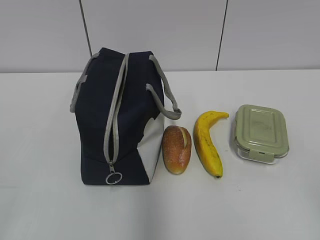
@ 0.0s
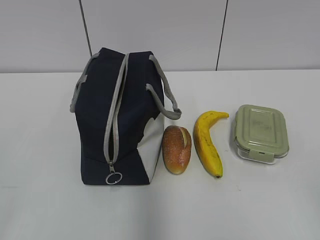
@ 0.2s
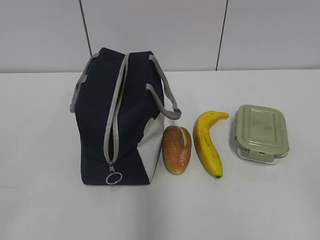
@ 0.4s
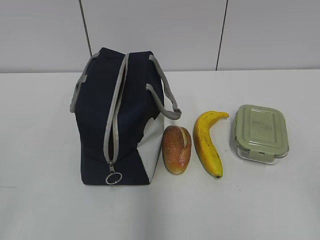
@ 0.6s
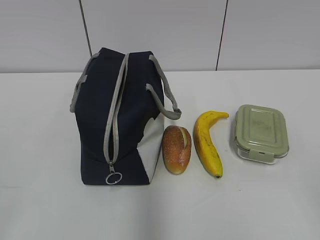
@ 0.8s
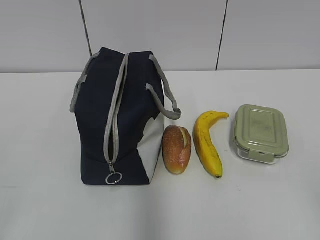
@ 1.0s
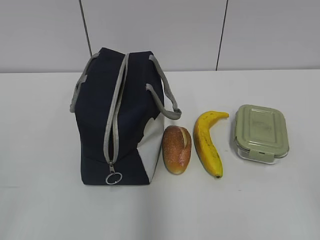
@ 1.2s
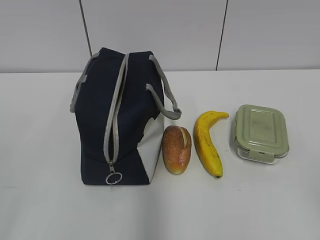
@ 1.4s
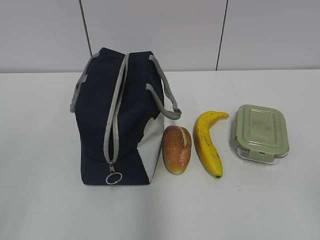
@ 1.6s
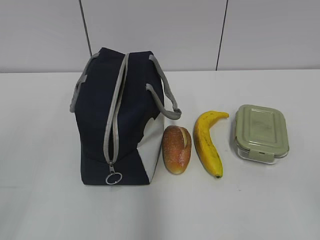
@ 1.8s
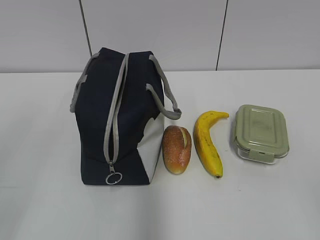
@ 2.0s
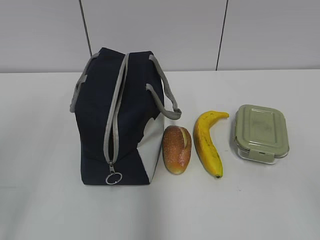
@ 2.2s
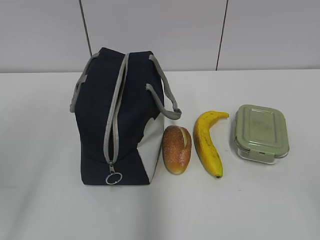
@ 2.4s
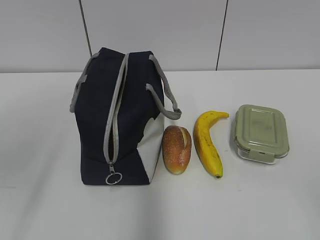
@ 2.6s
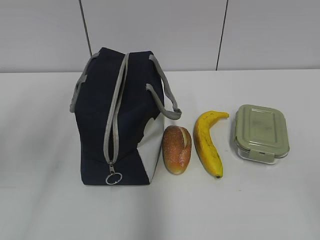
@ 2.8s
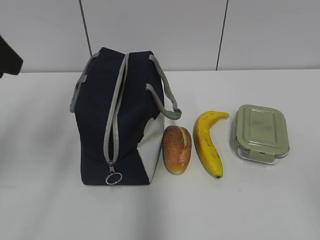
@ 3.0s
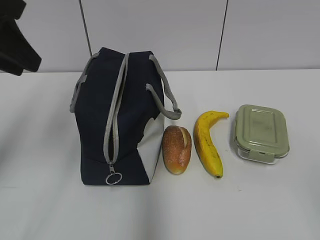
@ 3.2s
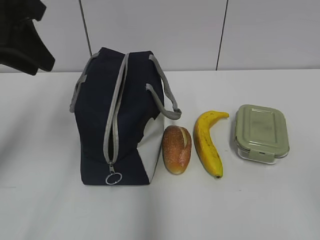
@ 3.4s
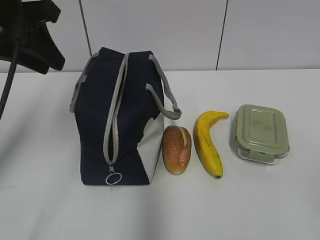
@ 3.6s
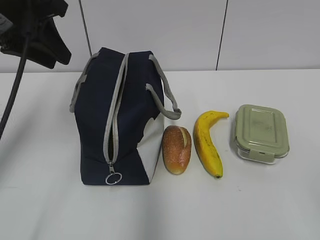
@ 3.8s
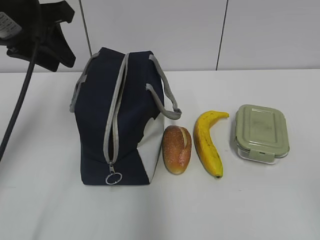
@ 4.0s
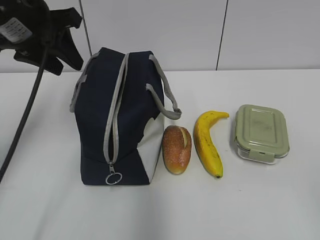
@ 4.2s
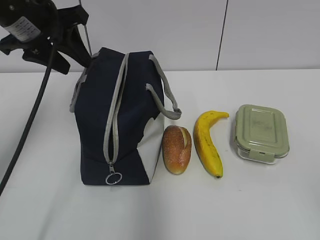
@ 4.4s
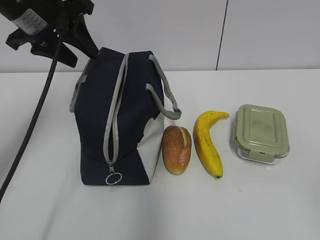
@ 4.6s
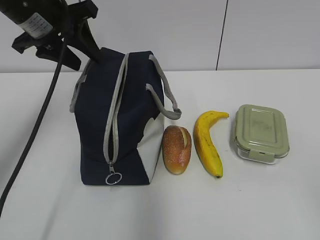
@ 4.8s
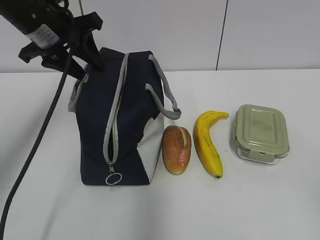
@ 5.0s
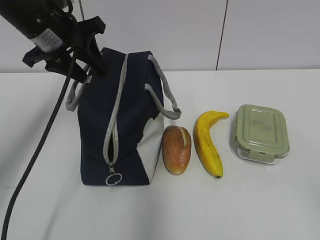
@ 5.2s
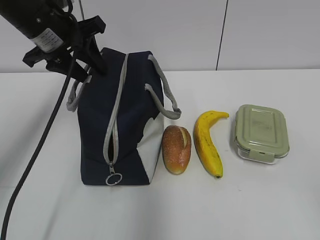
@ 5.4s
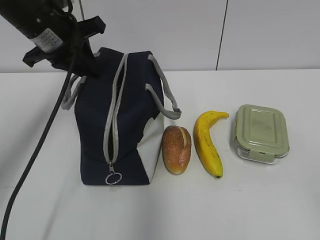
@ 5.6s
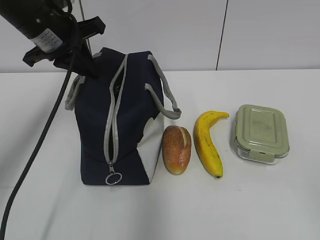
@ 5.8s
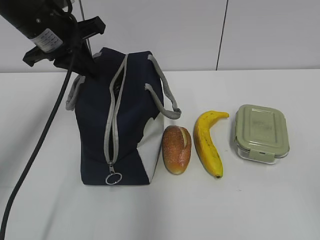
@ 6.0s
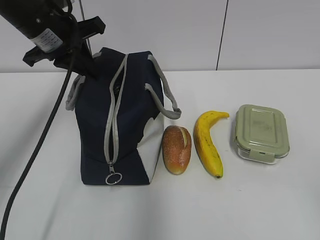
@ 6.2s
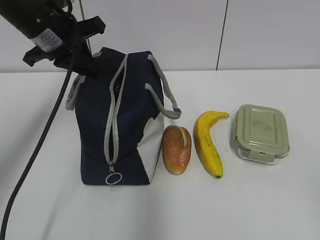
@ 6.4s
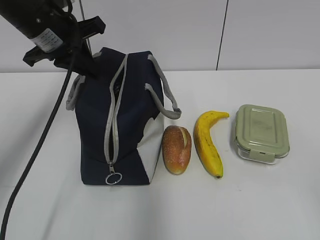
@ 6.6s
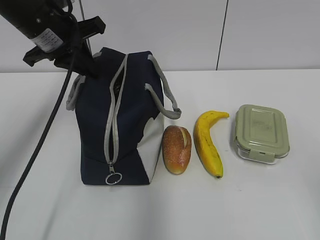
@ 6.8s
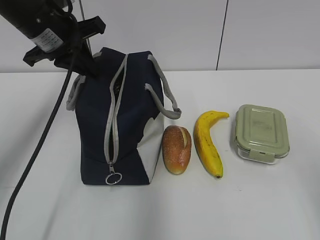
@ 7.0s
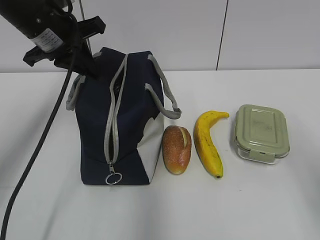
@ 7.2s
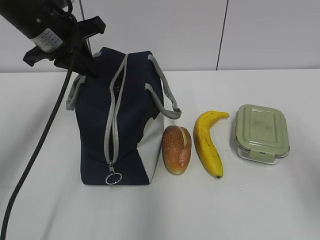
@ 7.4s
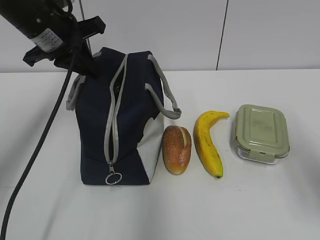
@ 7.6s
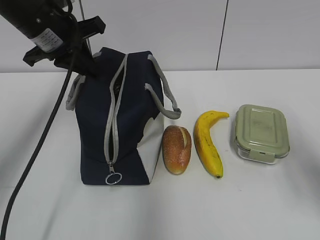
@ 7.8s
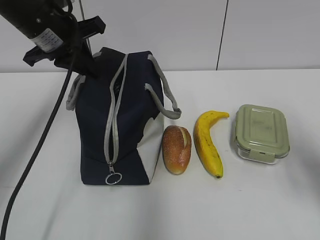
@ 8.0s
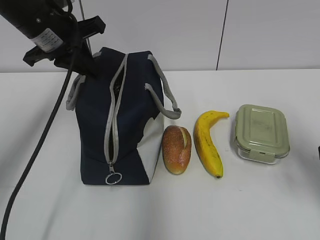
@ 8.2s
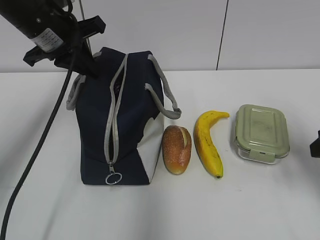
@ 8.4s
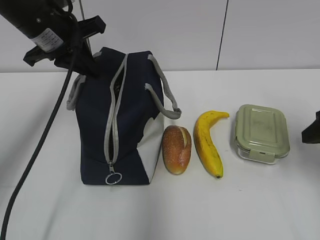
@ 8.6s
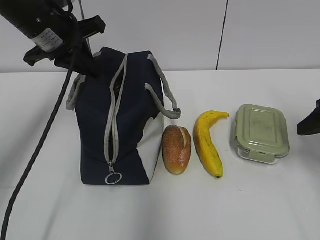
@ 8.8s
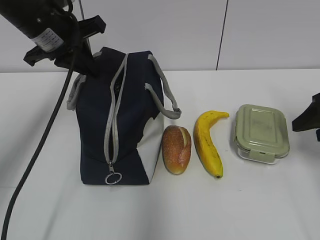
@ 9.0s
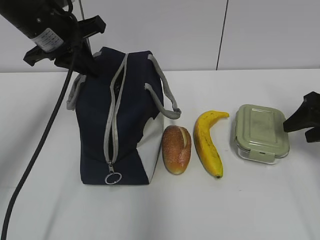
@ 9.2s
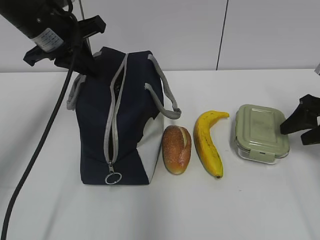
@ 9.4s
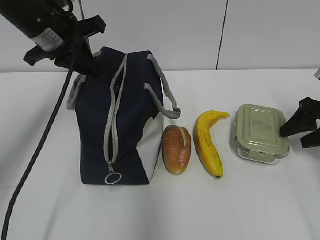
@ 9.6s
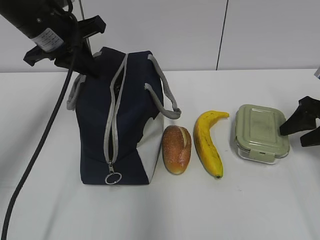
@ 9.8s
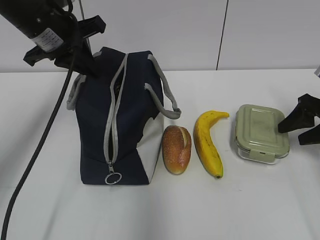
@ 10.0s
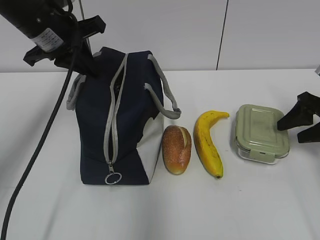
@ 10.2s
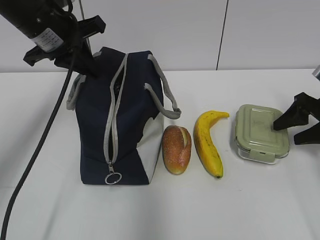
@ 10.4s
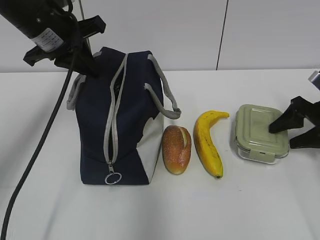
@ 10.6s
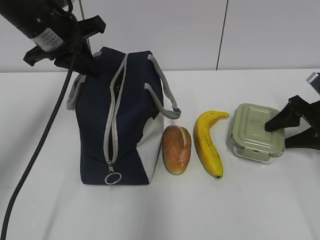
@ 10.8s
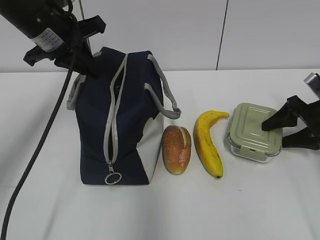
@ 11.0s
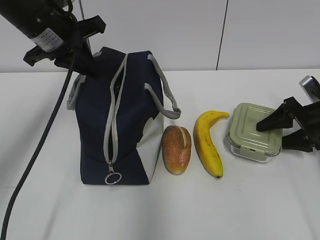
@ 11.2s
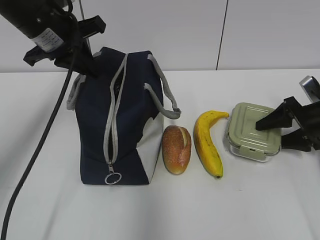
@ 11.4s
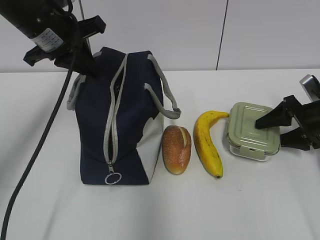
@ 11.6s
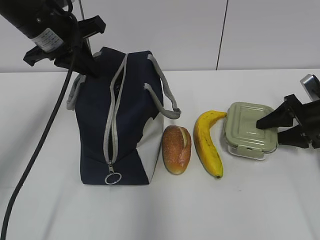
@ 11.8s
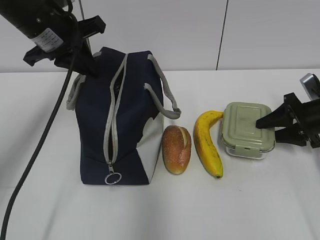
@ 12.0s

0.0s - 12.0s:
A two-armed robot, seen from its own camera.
Step, 0.0s - 11.8s: Grab the lunch box with your right hand.
1.6s - 3.0s: The left gripper travels forward by roughly 20 cm.
3.0s - 4.4s: The left gripper shifts approximately 15 cm forward.
4.4s - 6.0s: The left gripper closes.
6.0s - 7.6s: The right gripper heads forward, covering roughly 15 cm.
7.6s - 9.0s: The right gripper shifts approximately 15 cm forward.
9.0s - 10.4s: The right gripper moves forward, some 5 cm.
10.4s - 12.0s: The grippers stay close to where they were, moving slightly.

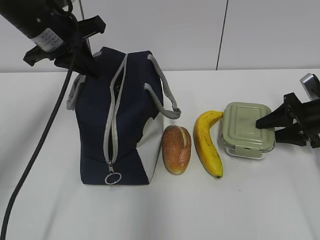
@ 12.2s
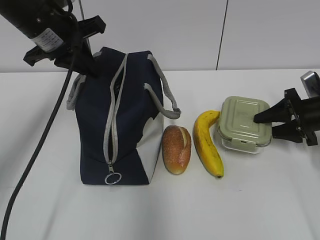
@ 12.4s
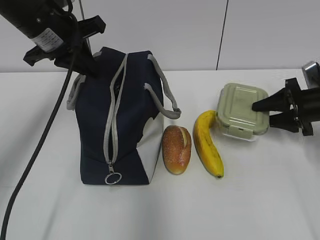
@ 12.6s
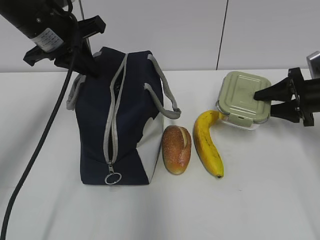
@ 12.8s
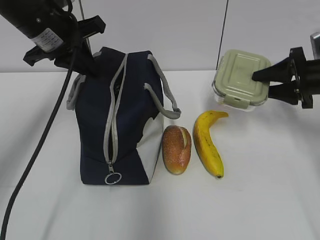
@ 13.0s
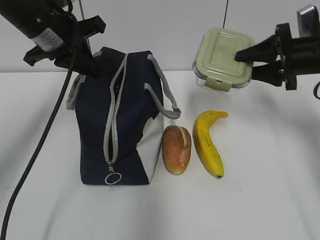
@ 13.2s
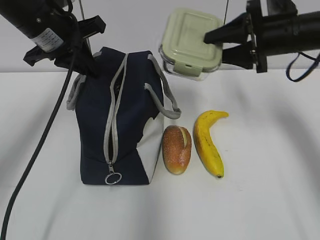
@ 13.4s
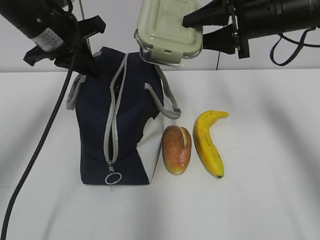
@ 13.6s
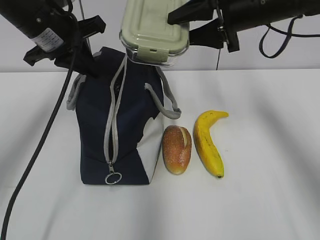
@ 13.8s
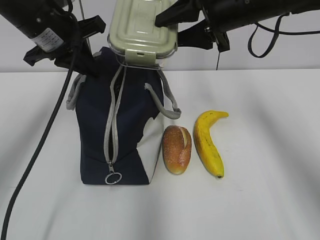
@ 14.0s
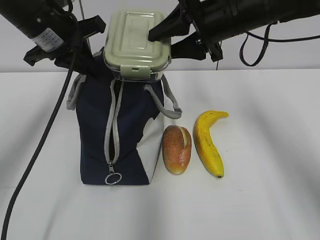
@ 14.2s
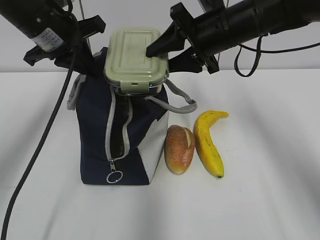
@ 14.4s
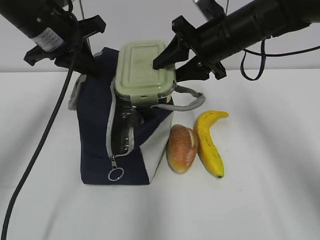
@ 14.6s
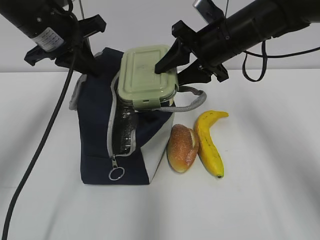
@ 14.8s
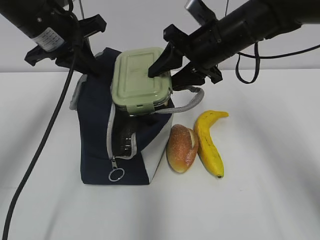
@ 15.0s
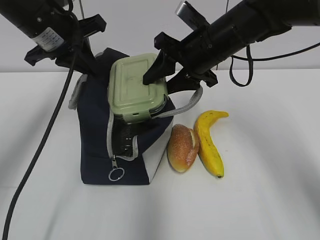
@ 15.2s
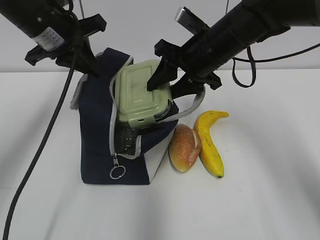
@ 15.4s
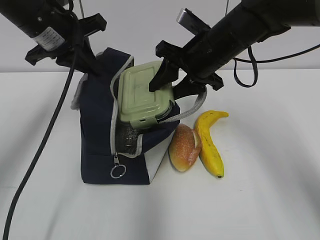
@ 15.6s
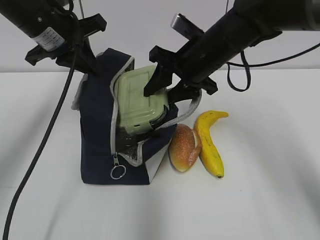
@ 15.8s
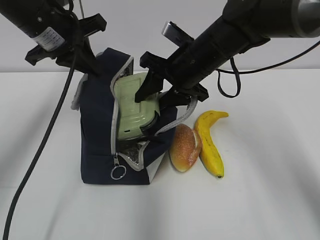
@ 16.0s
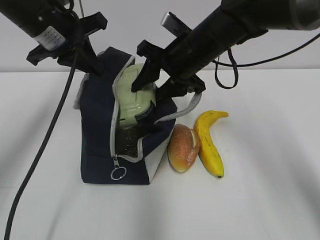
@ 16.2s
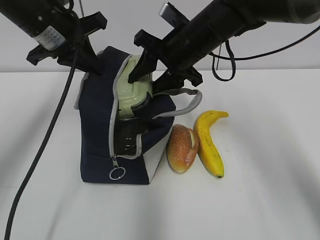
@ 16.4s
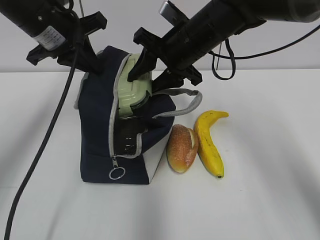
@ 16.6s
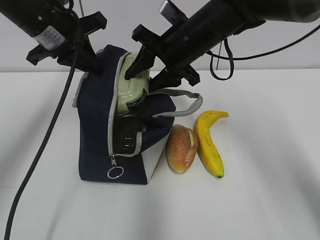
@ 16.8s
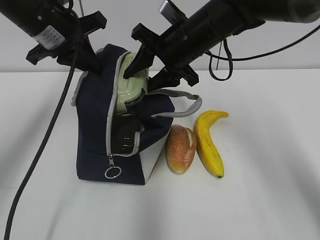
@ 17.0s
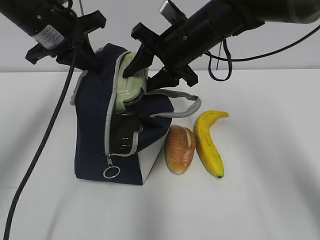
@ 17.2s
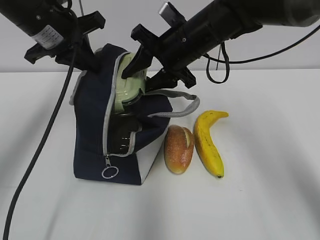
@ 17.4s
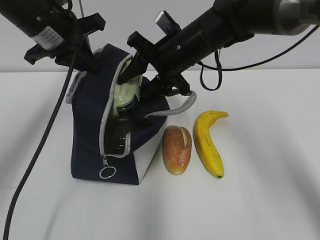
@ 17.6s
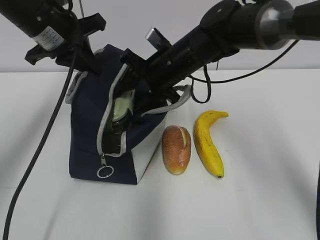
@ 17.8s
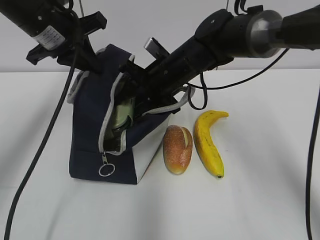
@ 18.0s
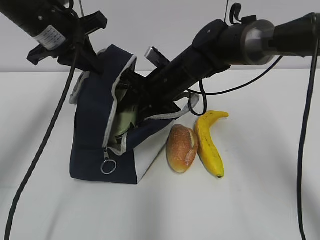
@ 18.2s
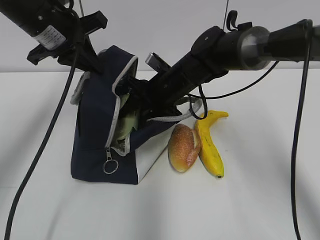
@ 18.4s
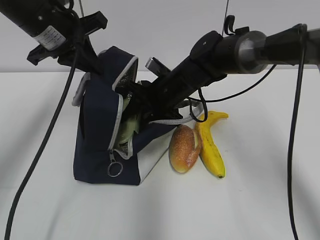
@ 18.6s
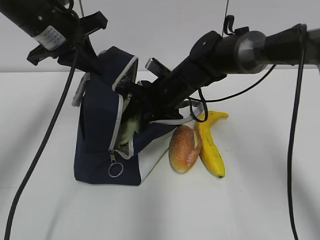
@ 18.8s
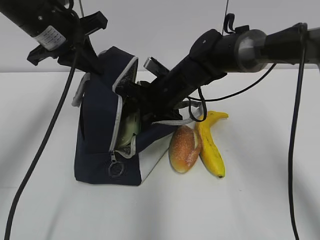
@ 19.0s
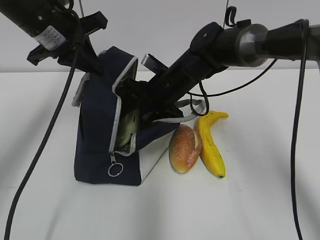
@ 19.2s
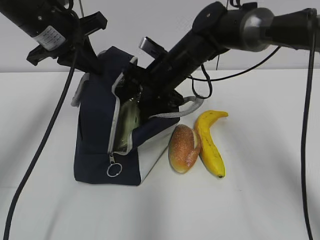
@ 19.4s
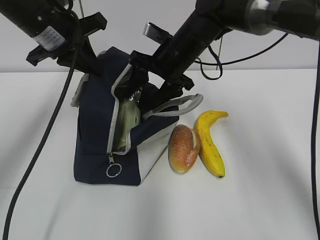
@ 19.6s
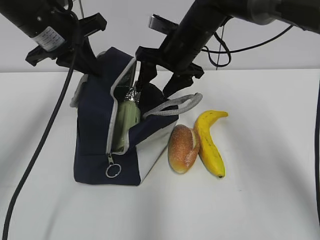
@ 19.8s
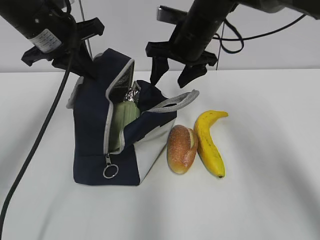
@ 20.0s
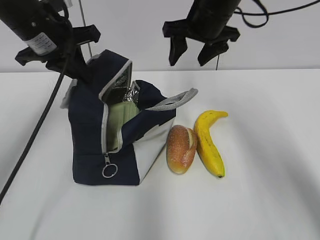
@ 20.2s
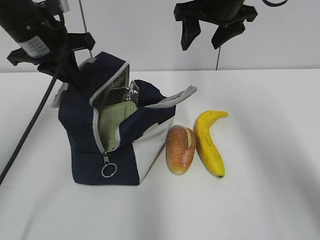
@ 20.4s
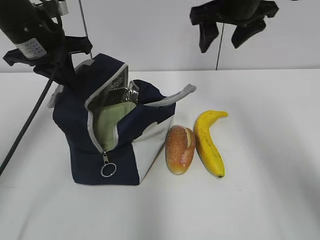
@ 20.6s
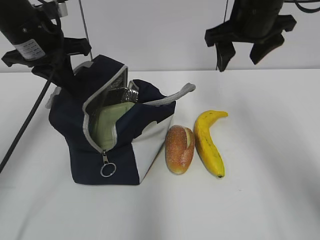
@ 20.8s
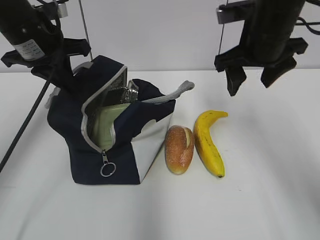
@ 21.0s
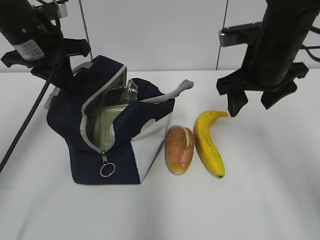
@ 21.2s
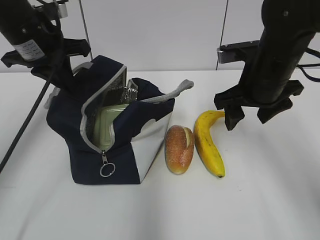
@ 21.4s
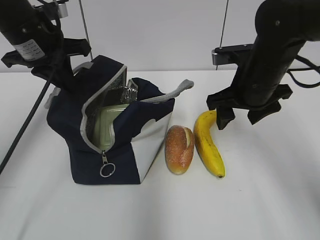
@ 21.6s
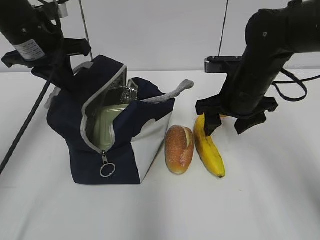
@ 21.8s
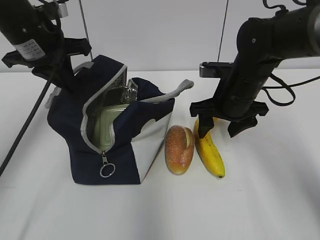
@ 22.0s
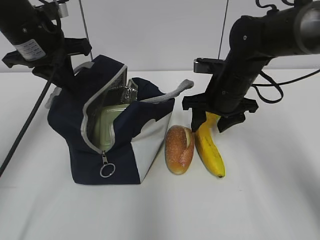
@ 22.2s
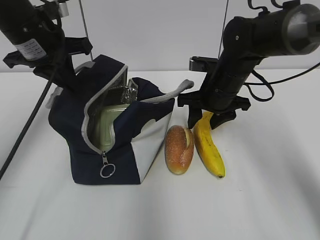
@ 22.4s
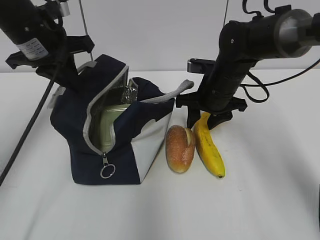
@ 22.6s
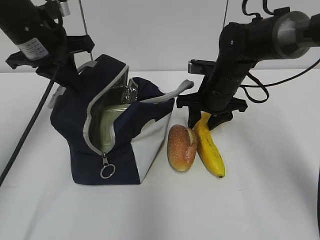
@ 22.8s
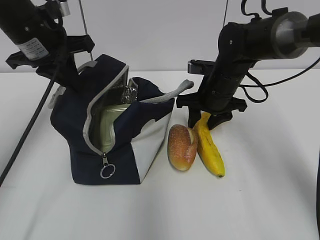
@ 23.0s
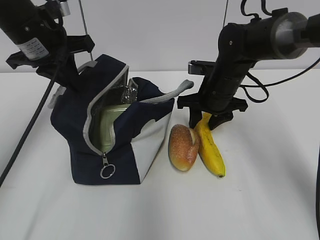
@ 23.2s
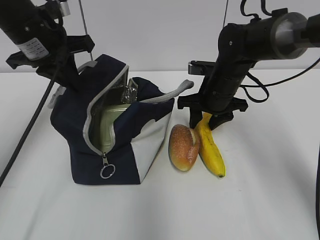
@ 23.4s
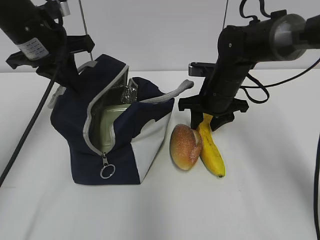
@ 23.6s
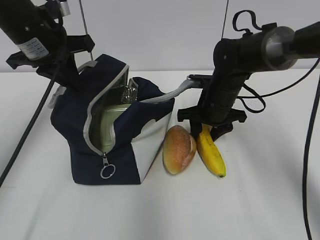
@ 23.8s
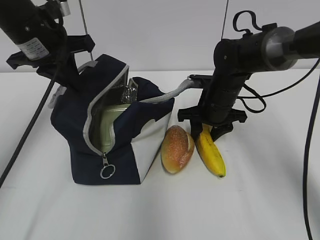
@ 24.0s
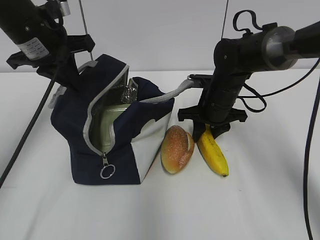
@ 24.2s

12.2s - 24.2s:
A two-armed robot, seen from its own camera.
Step, 14.6s - 19.2s: Place it into the bag with your right hand.
Step, 19.6s - 24.0s: Grab the banana with your right hand.
12.2s - 13.8s: The right gripper moves upward and to the left, roughly 25 cm.
13.8s - 15.2s: The right gripper moves to the left and downward, some 10 cm.
15.2s - 16.6s: The grippers stay close to where they were, moving slightly.
16.6s - 18.2s: The right gripper shifts approximately 10 cm downward.
18.2s - 19.8s: The right gripper moves upward, roughly 5 cm.
19.8s - 21.2s: The right gripper goes approximately 15 cm to the right and backward.
21.2s - 22.6s: The right gripper moves downward and forward, about 10 cm.
22.6s - 24.2s: The grippers make only small movements.
